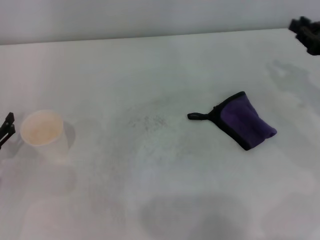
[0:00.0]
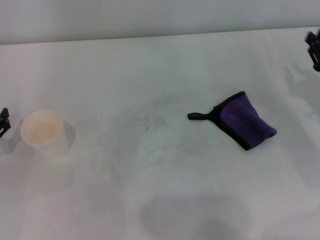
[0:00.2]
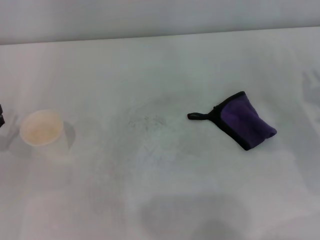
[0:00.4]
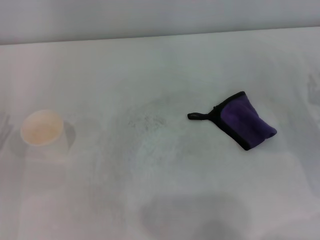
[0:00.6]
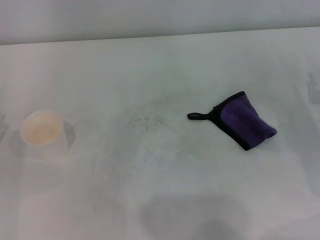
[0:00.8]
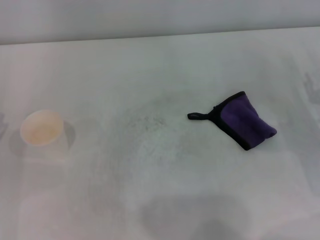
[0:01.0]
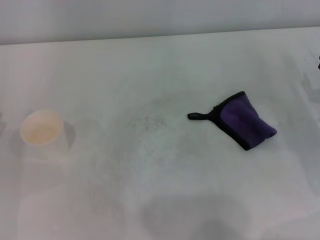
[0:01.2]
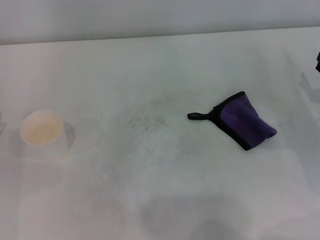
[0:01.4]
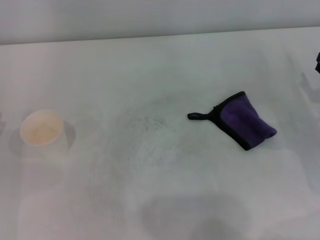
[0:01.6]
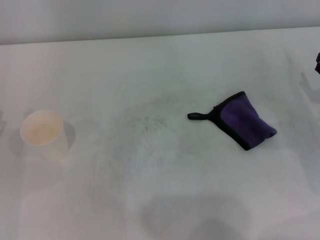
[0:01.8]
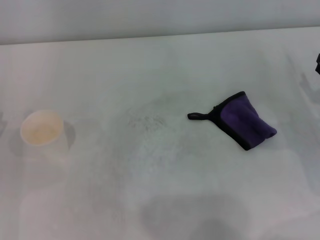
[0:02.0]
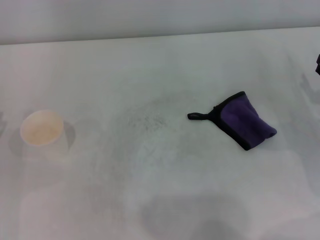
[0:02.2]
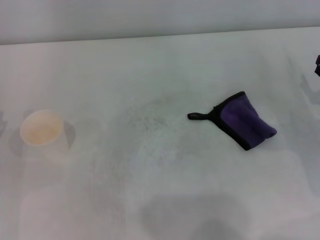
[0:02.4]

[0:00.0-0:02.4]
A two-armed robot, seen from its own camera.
0:00.0 to 0:01.2: The right gripper shifts about 5 cm downward.
